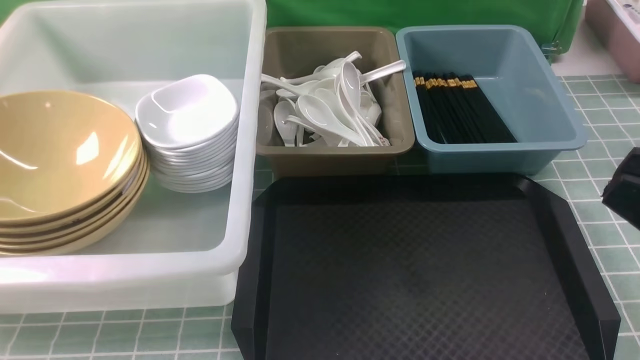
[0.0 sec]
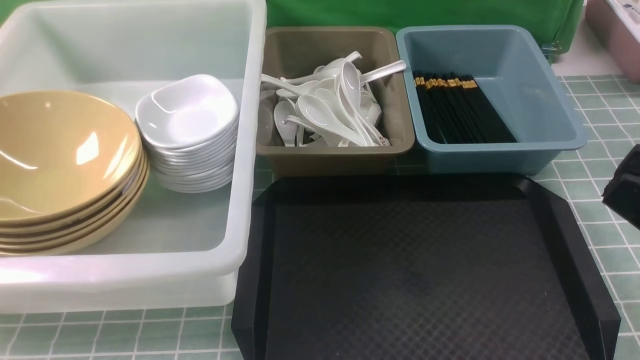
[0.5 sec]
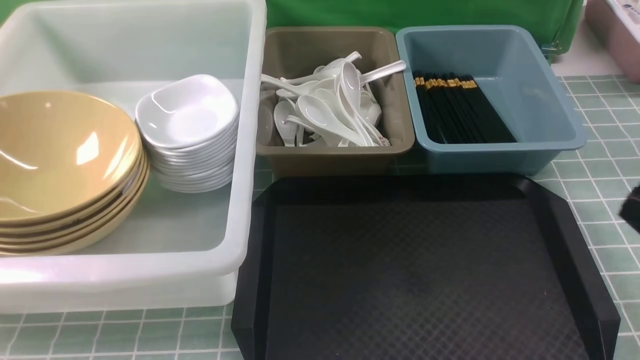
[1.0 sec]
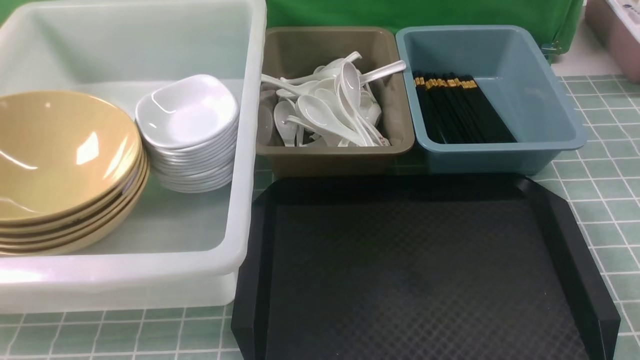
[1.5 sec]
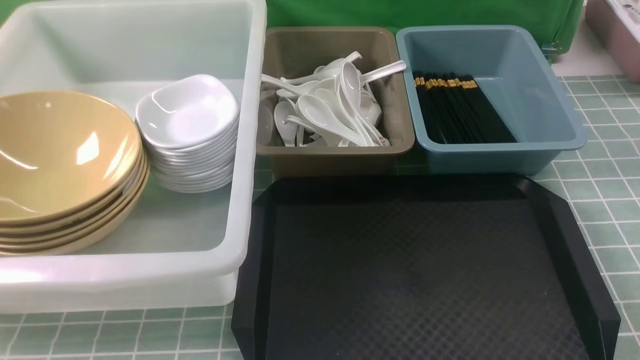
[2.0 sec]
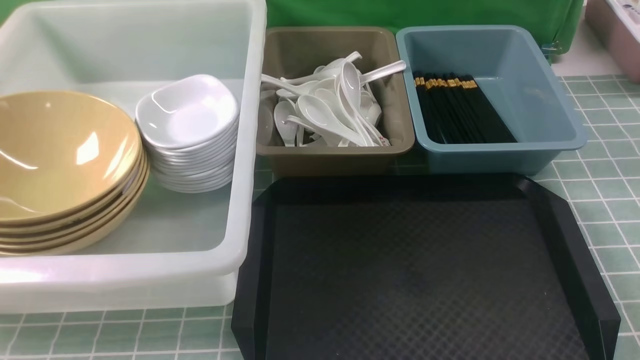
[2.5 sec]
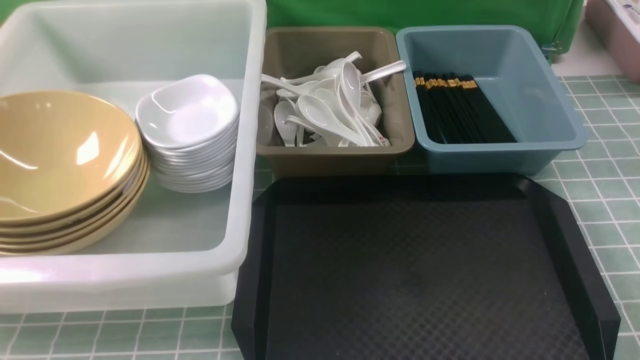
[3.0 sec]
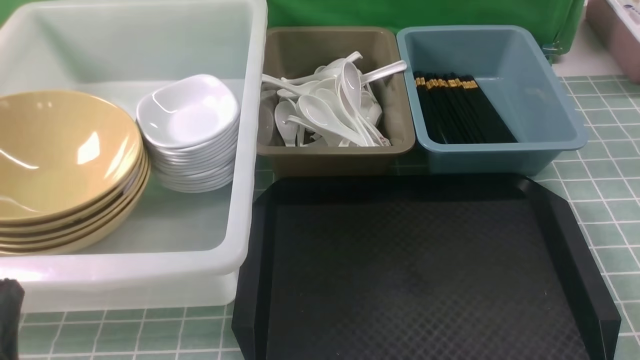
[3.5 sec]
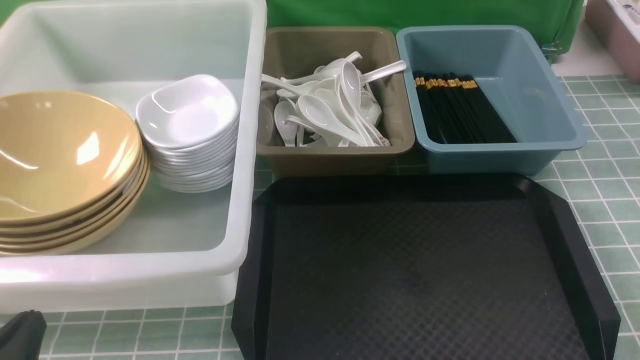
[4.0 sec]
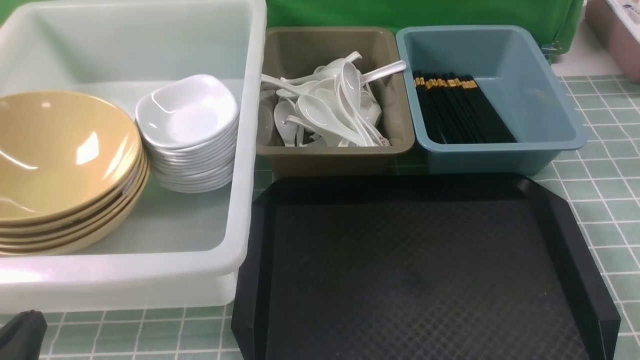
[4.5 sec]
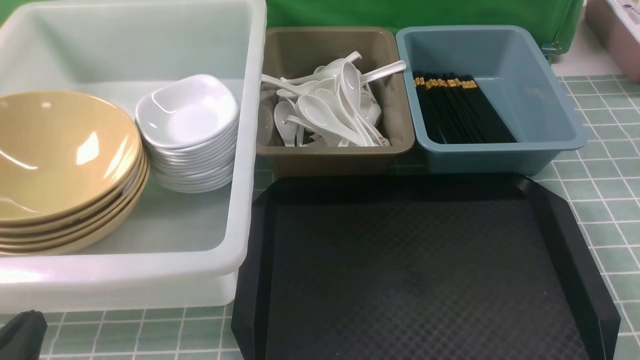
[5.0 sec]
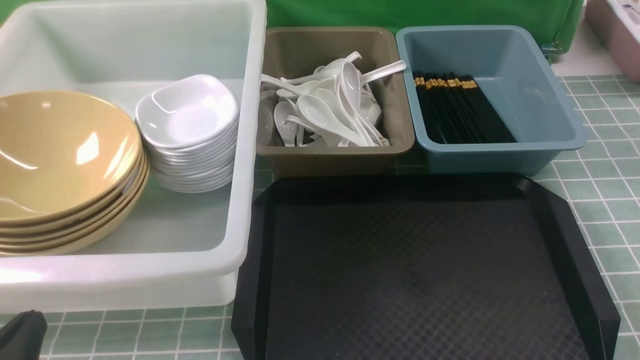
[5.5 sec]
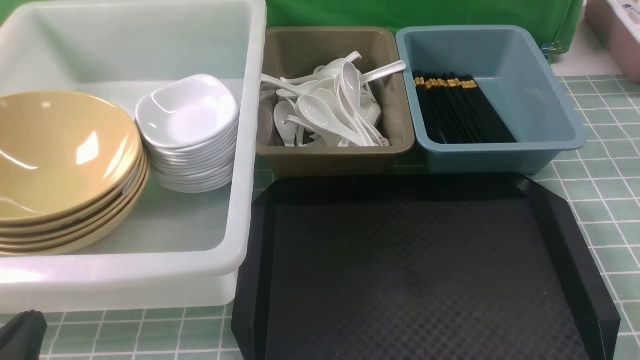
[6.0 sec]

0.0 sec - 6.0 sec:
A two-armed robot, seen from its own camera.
Task of the whole recording: on blue table put chopsticks spoon bowls plates into blue grey white boxes.
0.0 sec - 2.0 sec: The right gripper is displaced downward and to the right by roughly 20 cm.
2.0 sec - 4.0 sec: The left gripper shifts approximately 10 cm downward.
4.0 sec - 6.0 sec: Both grippers stay put.

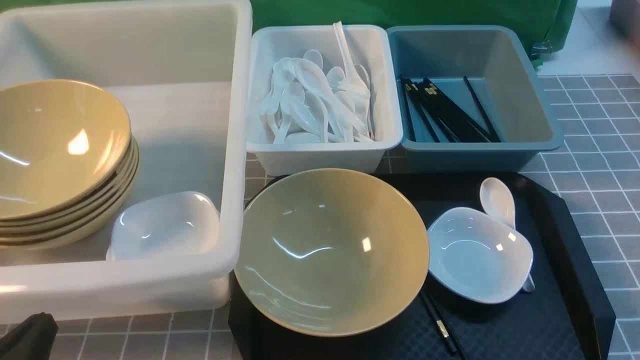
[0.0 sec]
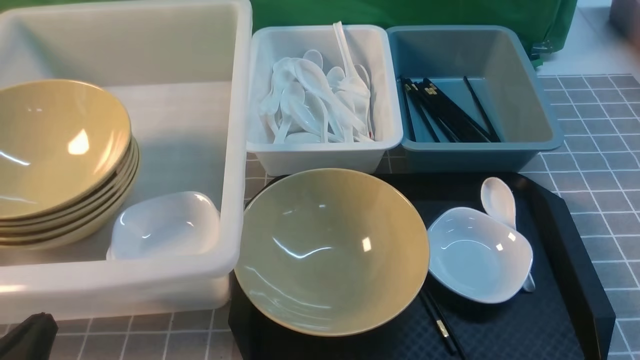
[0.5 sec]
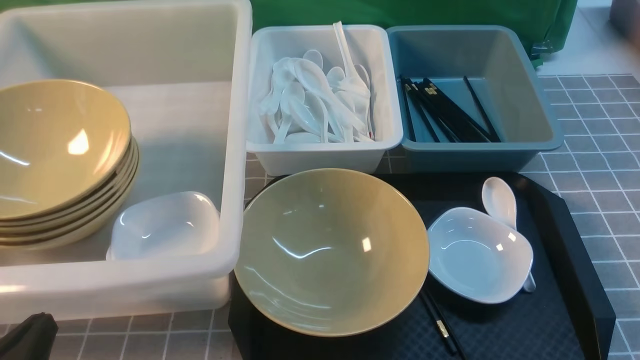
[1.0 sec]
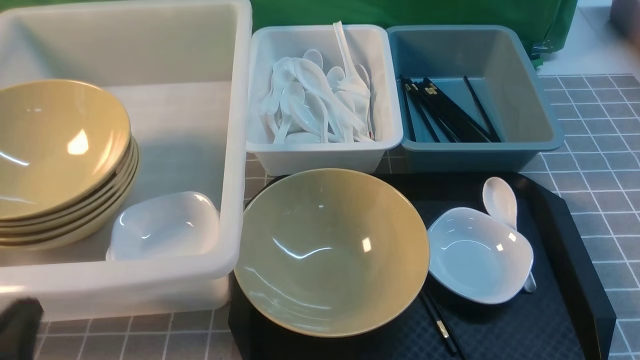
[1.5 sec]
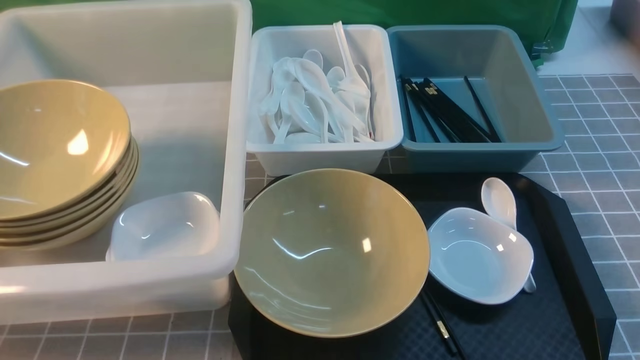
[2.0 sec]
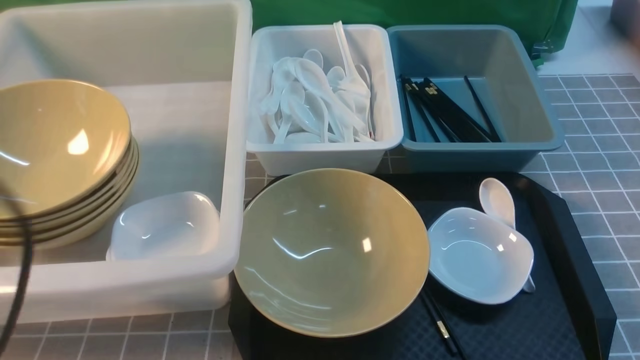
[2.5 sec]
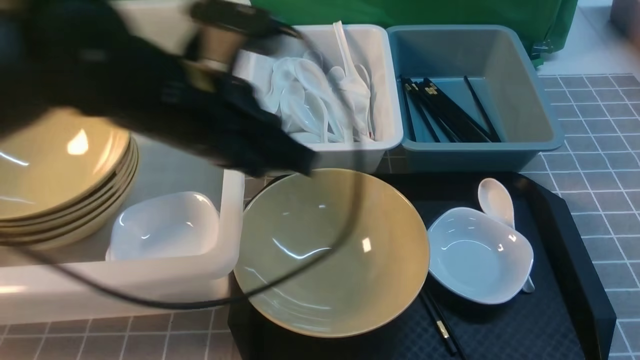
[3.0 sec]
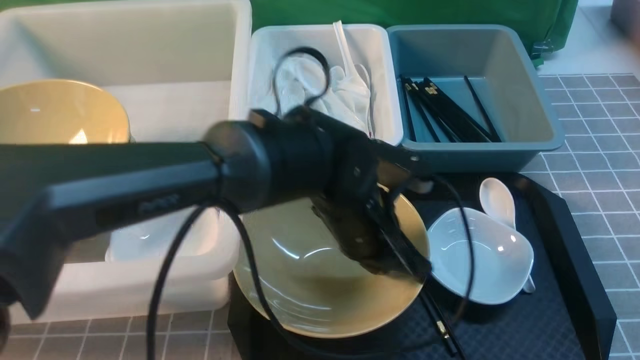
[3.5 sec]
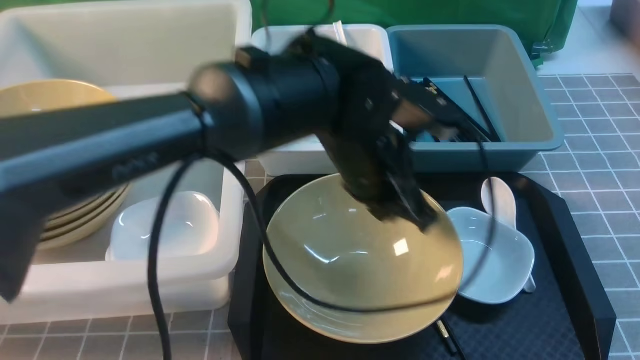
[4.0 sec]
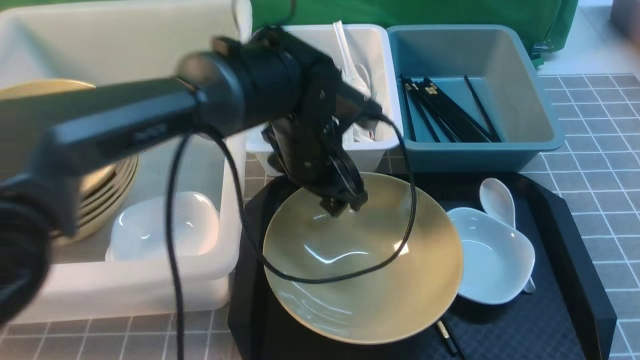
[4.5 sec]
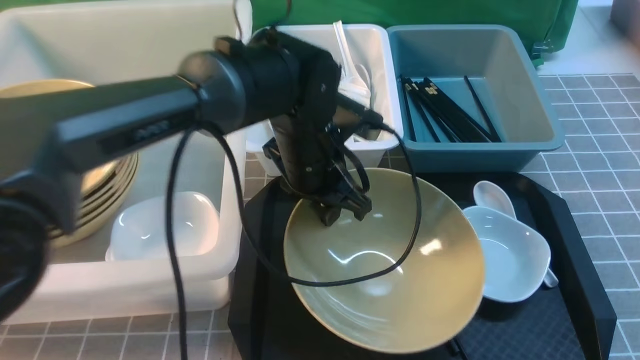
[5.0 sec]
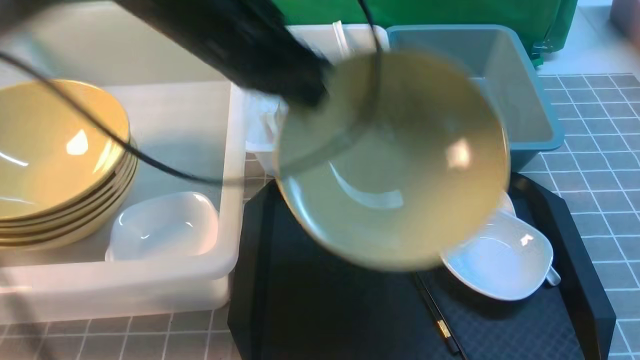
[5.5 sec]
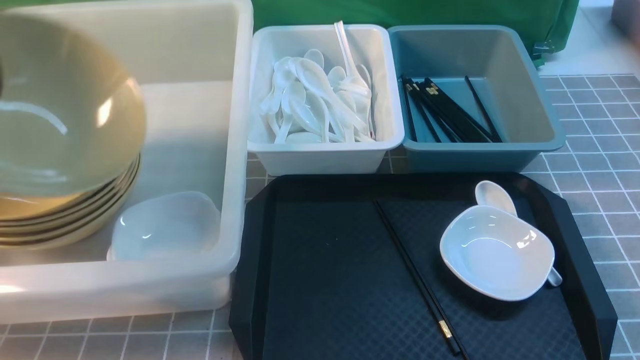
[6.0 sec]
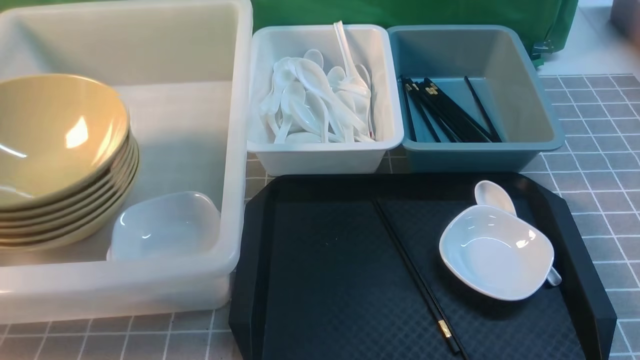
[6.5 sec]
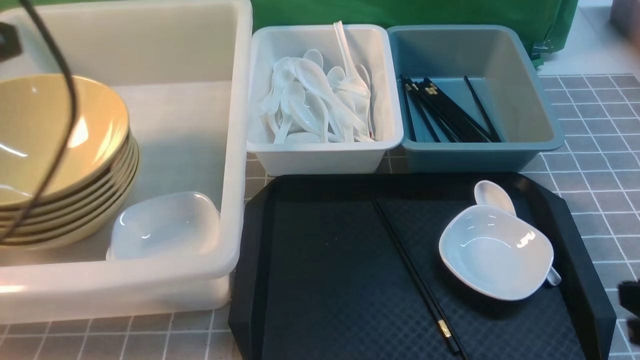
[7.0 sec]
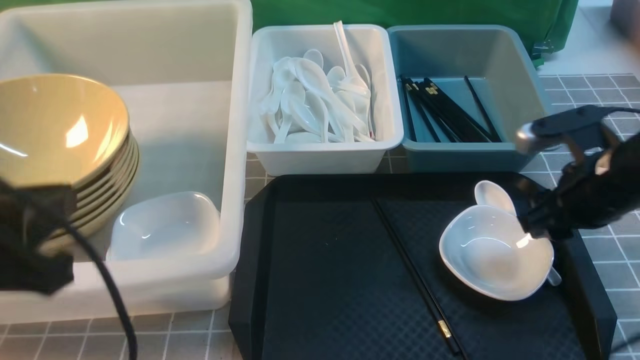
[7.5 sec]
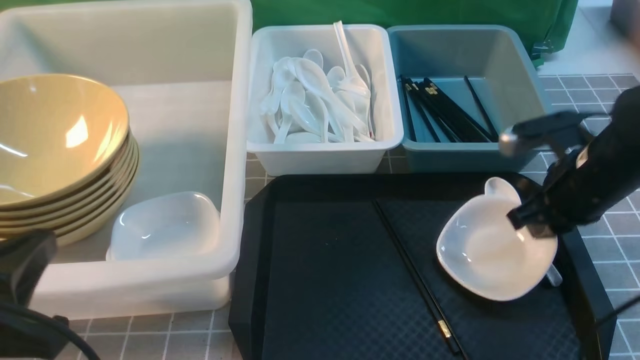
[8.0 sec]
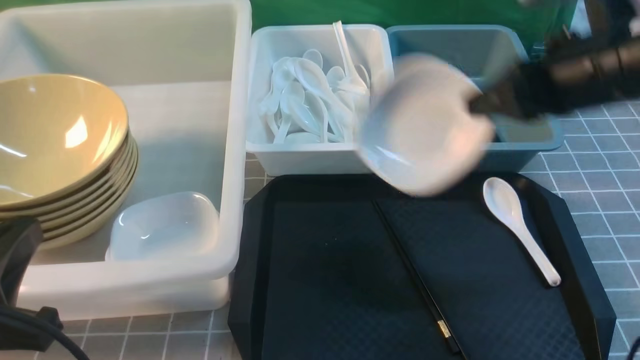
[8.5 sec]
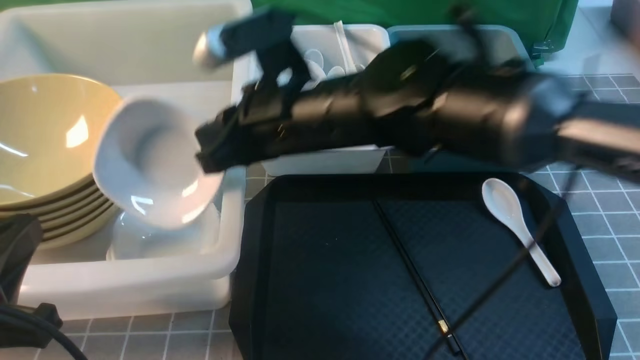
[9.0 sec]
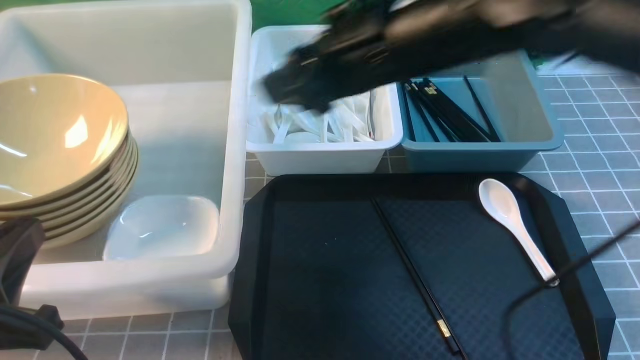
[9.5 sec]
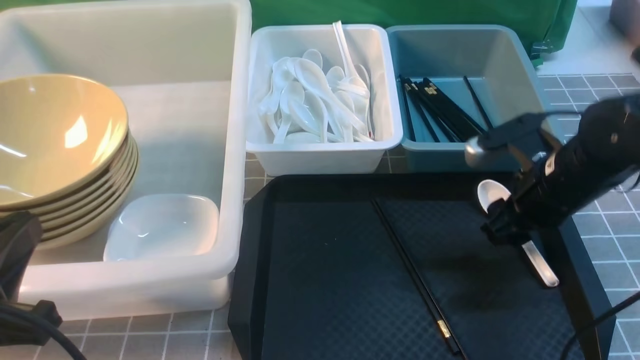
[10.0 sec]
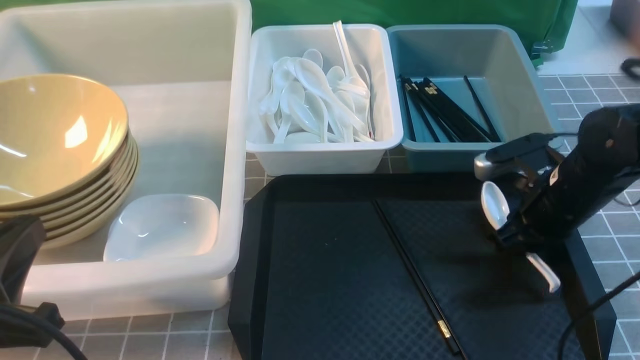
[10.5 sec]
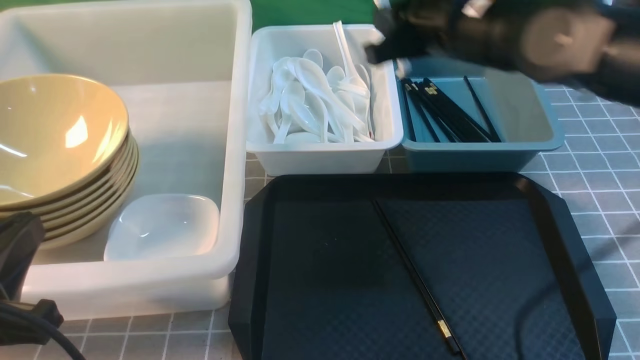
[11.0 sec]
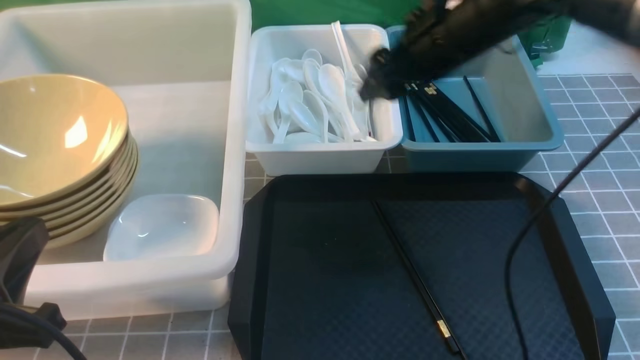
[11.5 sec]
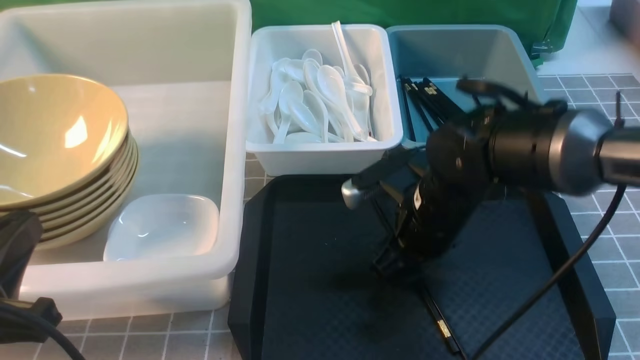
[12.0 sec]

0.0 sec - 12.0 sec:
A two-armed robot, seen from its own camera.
Task of the whole recording: on grey table put chopsticks spoon bowls plates into blue grey white boxes.
Step, 0.0 sec - 5.0 sec: use the left arm to grab the yellow noodle bowl on the left.
Step, 6.0 sec - 6.5 sec: use the left arm to put the noodle bowl into the large storage box on the left.
Step, 7.0 sec - 8.0 sec: use the right arm to grab the plate.
Step, 8.5 sec - 9.0 sec: use the right arm to put the plate into the large storage box on the left.
Step, 9.5 sec - 10.5 sec: use the right arm to grab the soup spoon in the middle.
2.0 sec - 4.0 sec: The left gripper is displaced to the right and forward by roughly 40 cm, while the right gripper closes.
4.0 sec - 6.0 sec: The left gripper travels to the left by approximately 40 cm, and opens, then closes again.
6.0 sec - 8.0 sec: The right gripper travels forward by some 25 cm, and opens, then closes again. Meanwhile the left gripper moves backward, downward and to the right, approximately 25 cm, and opens, then closes again.
8.0 sec - 10.0 sec: The right gripper travels to the left and back again, approximately 25 cm each way, and opens up.
10.0 sec - 12.0 sec: The right gripper swings up and down, about 15 cm each way, with 2 reversals, and closes, then opens again.

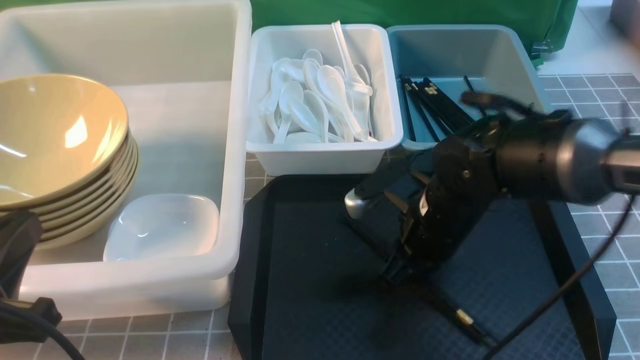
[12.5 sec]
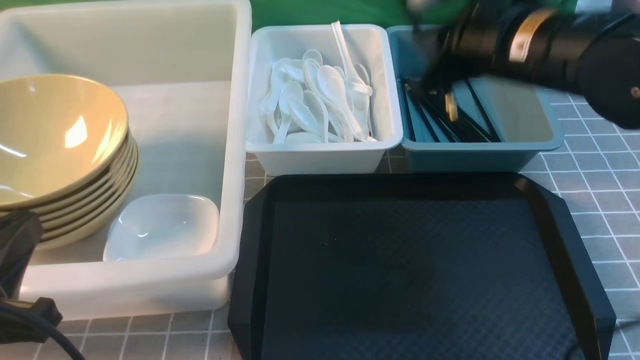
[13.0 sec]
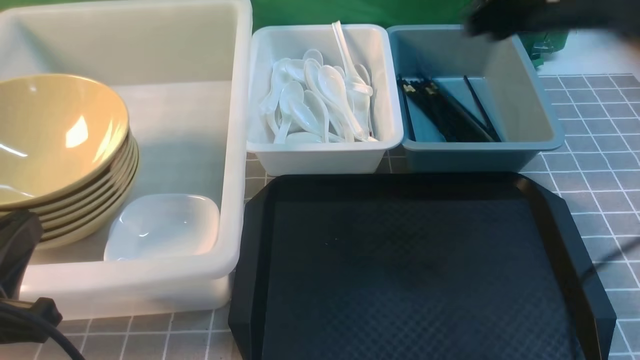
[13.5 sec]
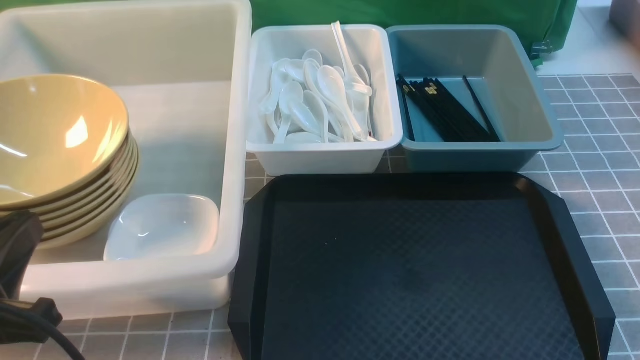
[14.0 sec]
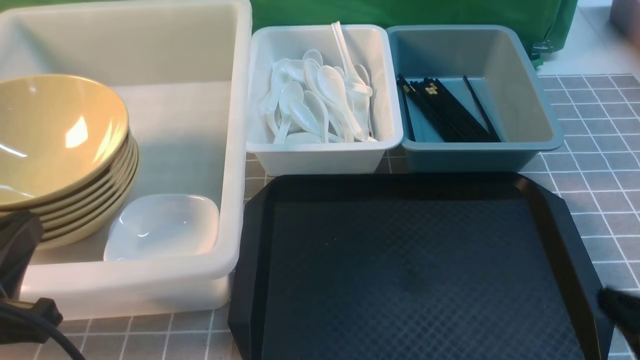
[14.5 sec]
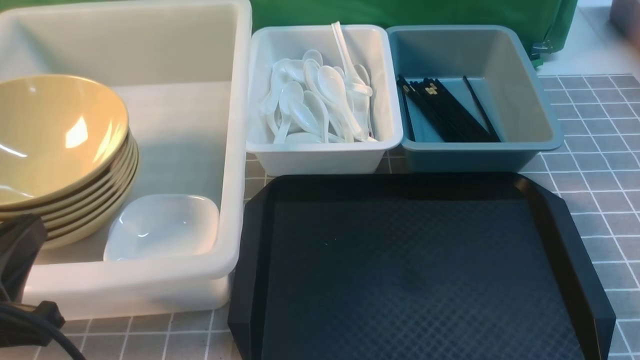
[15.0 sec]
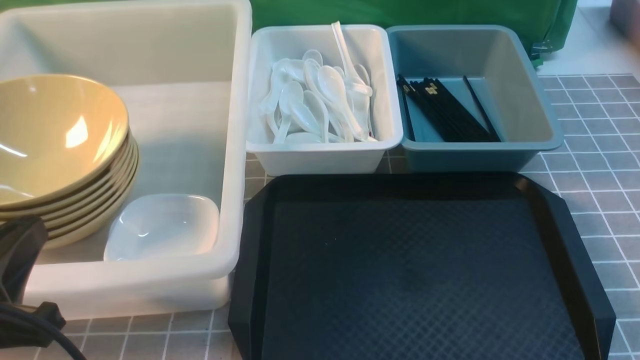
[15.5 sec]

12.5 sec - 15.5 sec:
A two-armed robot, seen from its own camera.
Task of the whole recording: on grey table put chopsticks spoon bowls plates into blue grey white boxes.
12.5 sec - 14.0 sec: The right gripper travels upward, to the right and backward by roughly 30 cm.
